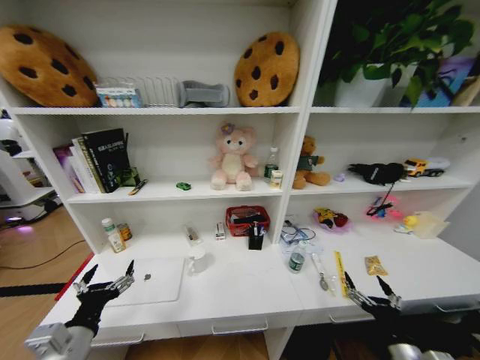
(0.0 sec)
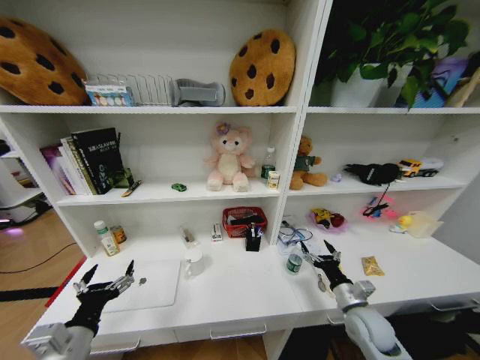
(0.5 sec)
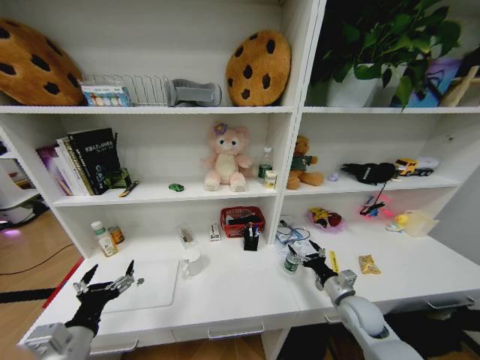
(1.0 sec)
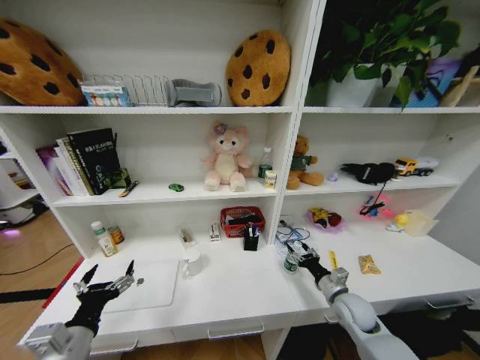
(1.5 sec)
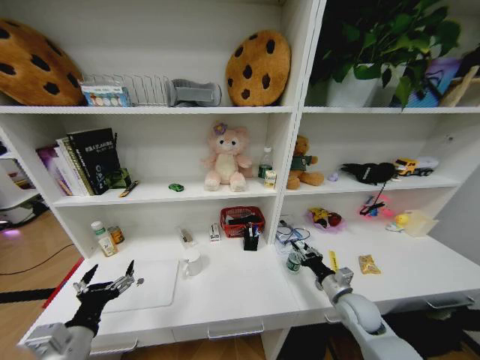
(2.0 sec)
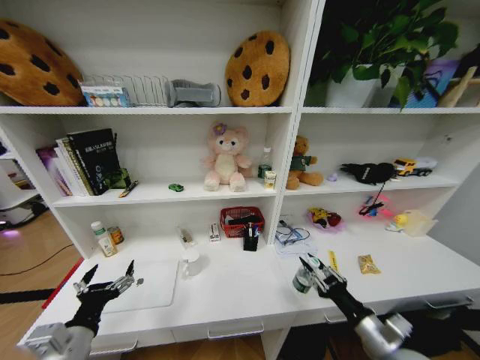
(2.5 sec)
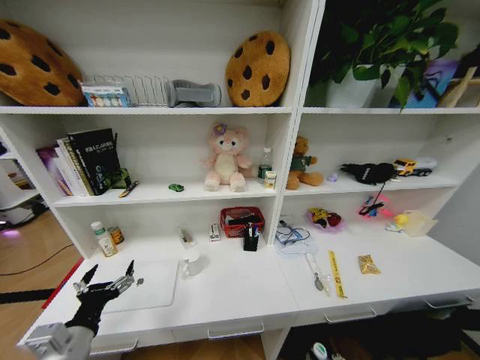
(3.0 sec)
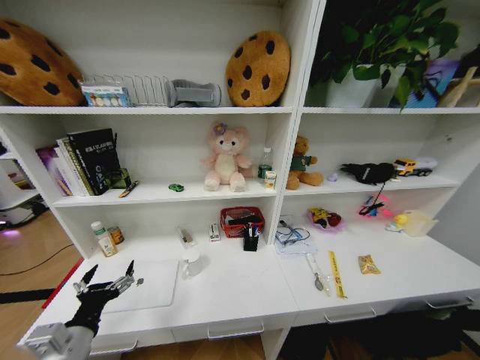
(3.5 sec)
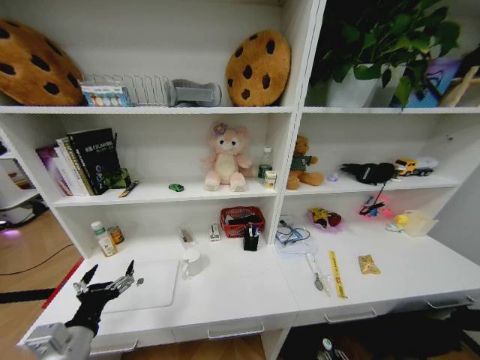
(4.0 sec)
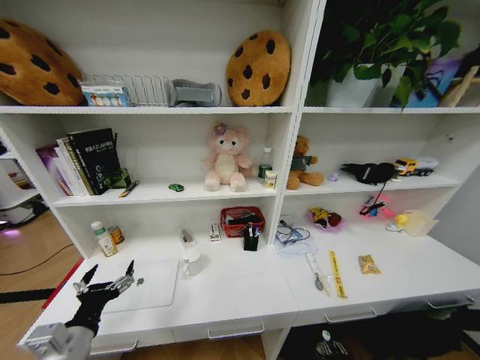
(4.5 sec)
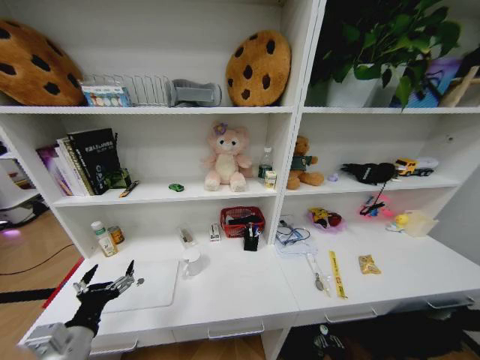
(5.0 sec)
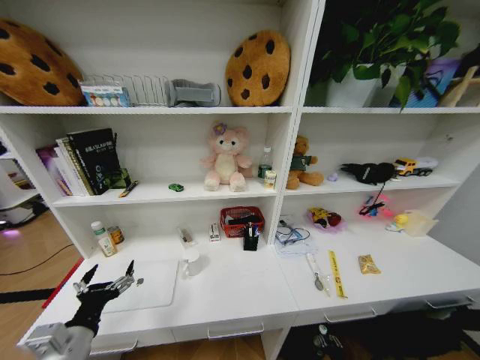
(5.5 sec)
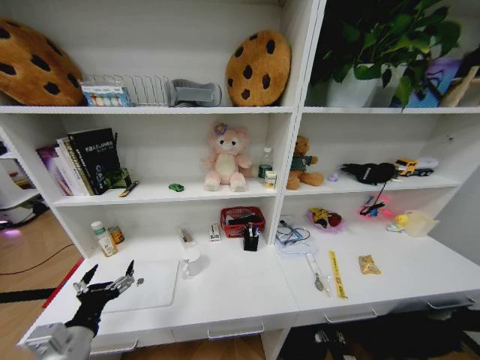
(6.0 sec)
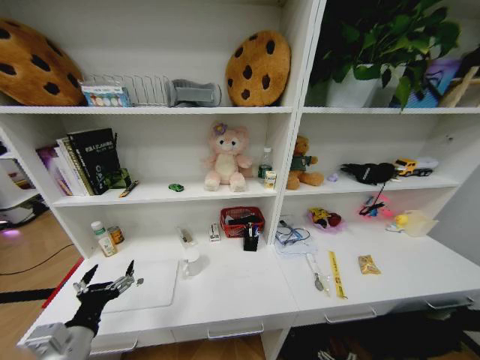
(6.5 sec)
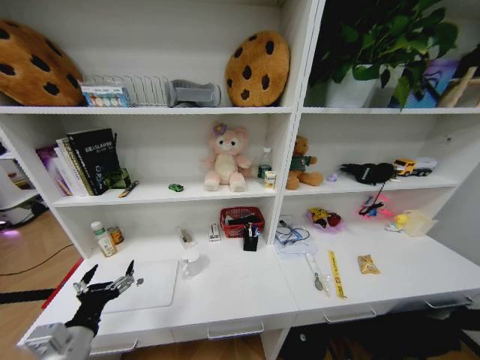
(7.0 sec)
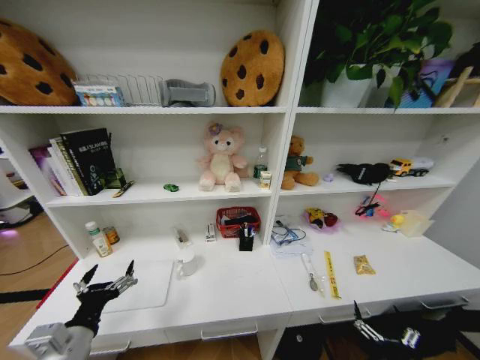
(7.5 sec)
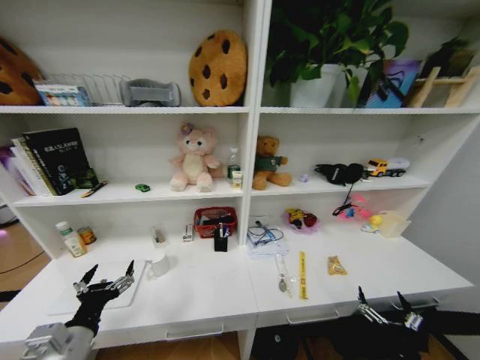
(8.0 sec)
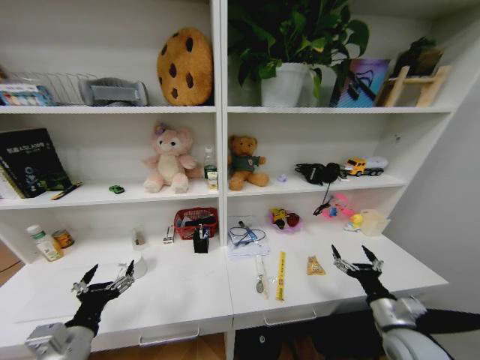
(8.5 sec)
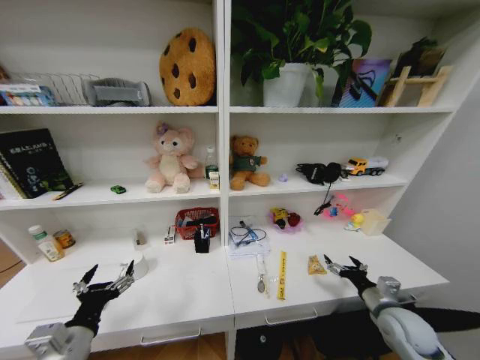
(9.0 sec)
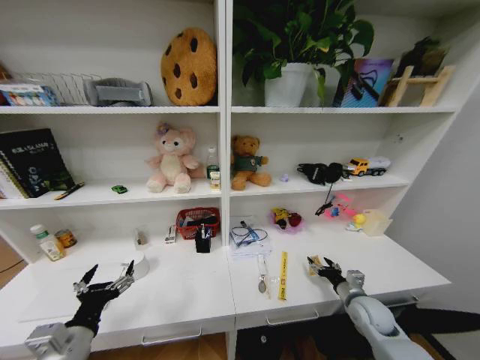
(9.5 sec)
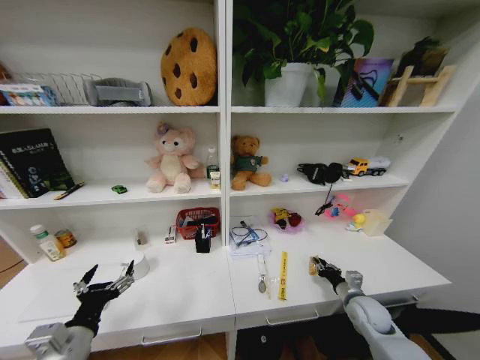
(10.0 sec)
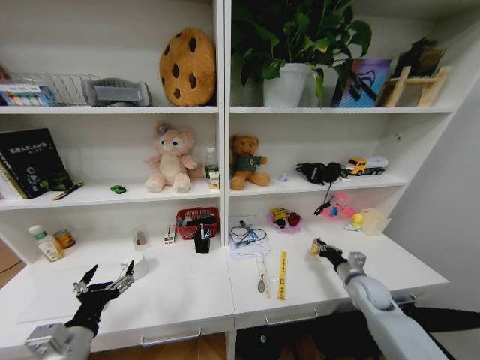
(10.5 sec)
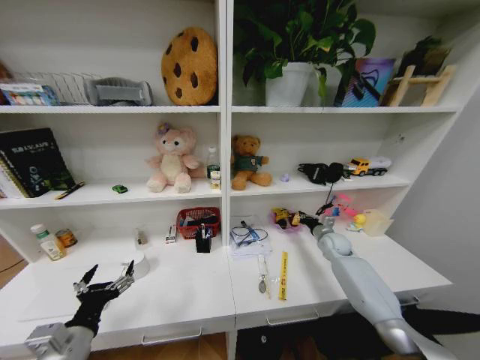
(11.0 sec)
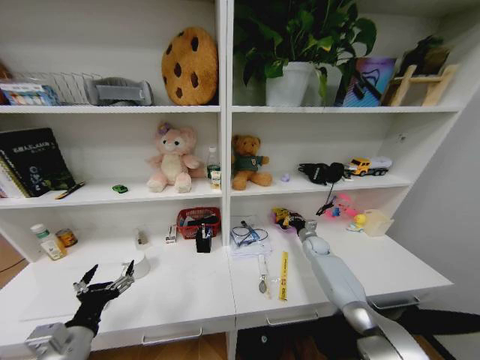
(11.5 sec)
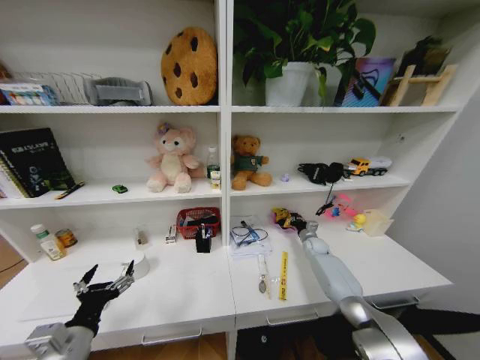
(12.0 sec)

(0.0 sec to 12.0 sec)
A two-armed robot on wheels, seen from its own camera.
Task of the whole recording: Organize the objects on the table.
0.0 sec - 2.0 sec: The right gripper shifts roughly 15 cm forward, and closes.
2.0 sec - 4.0 sec: The right gripper is displaced downward and backward by roughly 35 cm.
6.0 sec - 8.0 sec: The right gripper moves upward, approximately 25 cm, and opens up.
8.0 sec - 10.0 sec: The right gripper is displaced forward by about 20 cm, and closes up.
10.0 sec - 12.0 sec: The right gripper travels forward by some 25 cm.

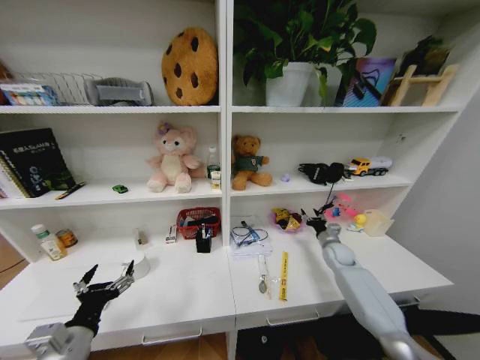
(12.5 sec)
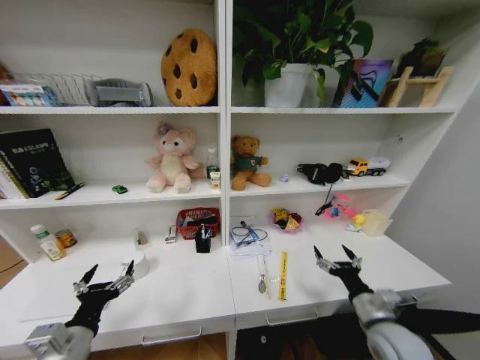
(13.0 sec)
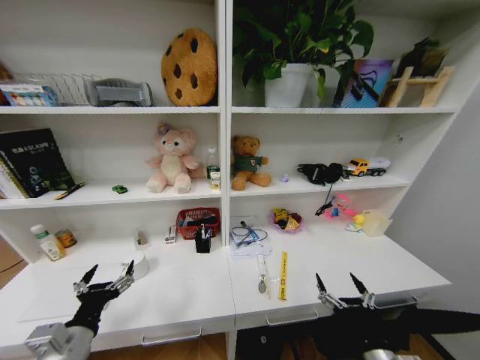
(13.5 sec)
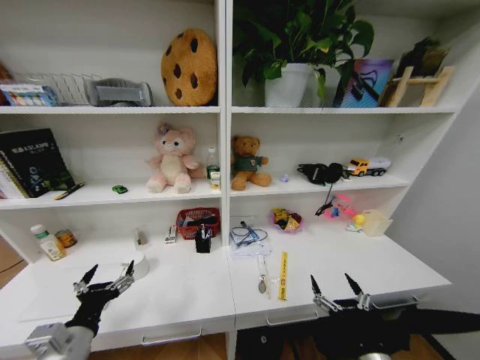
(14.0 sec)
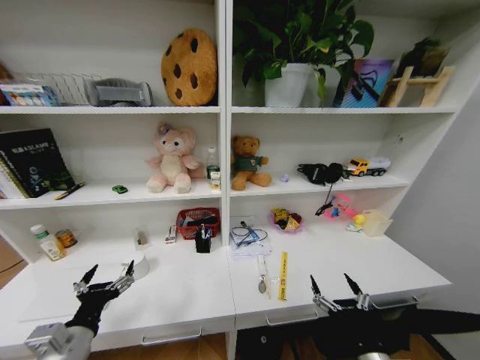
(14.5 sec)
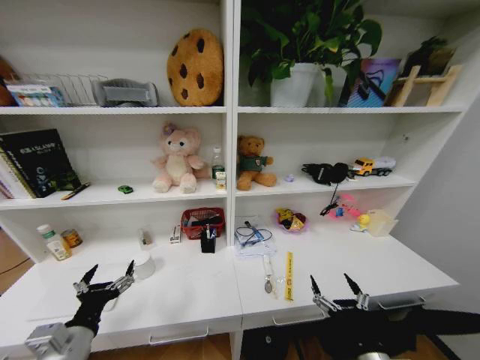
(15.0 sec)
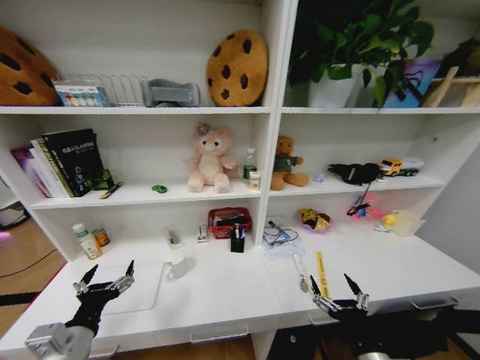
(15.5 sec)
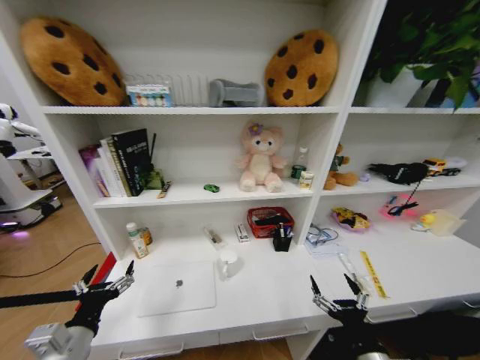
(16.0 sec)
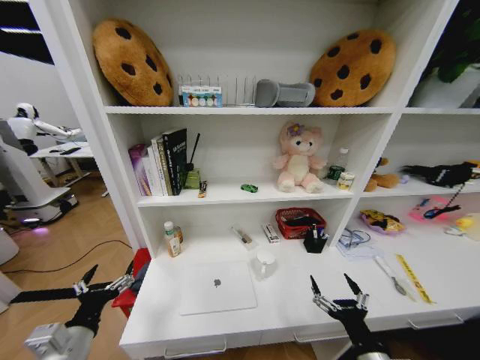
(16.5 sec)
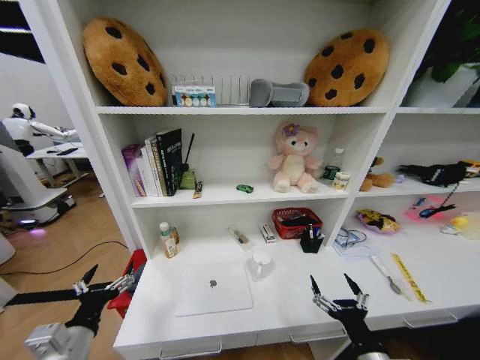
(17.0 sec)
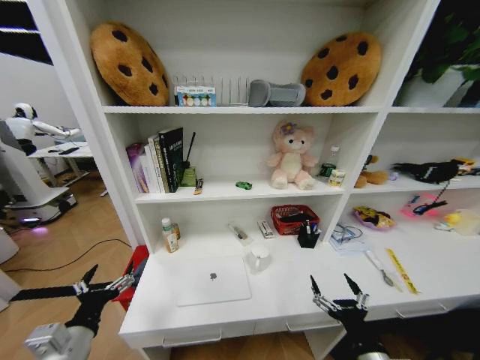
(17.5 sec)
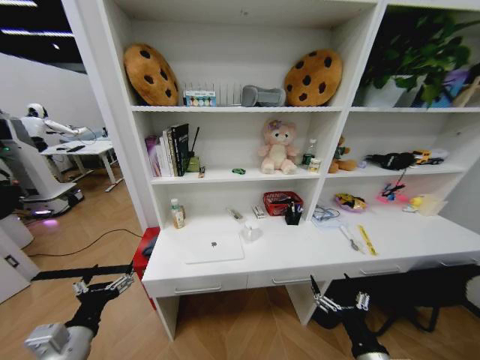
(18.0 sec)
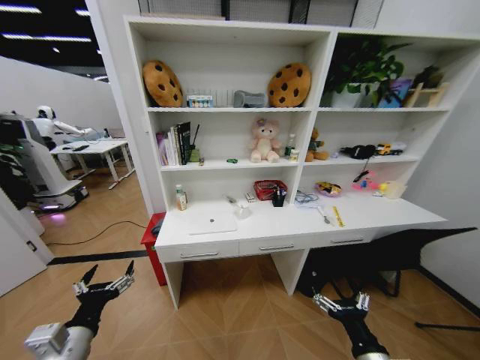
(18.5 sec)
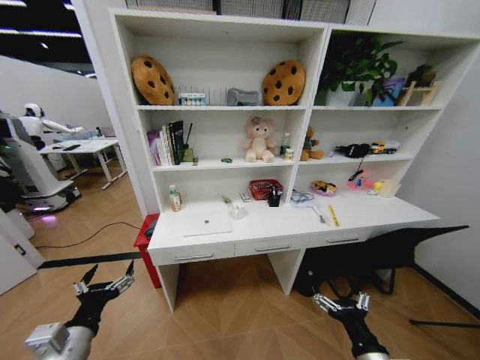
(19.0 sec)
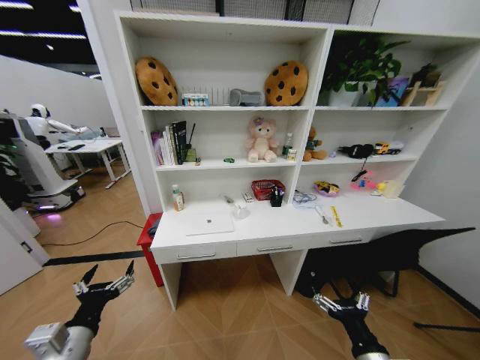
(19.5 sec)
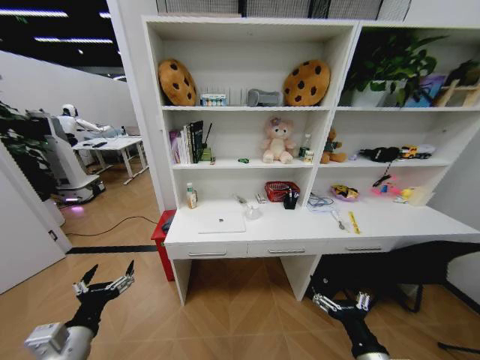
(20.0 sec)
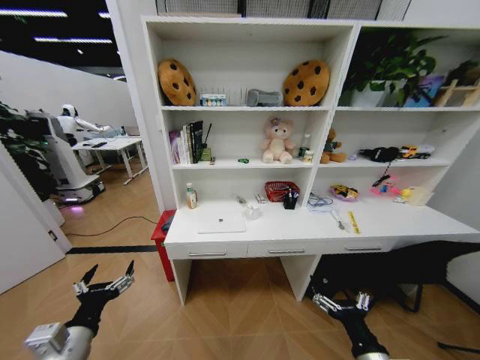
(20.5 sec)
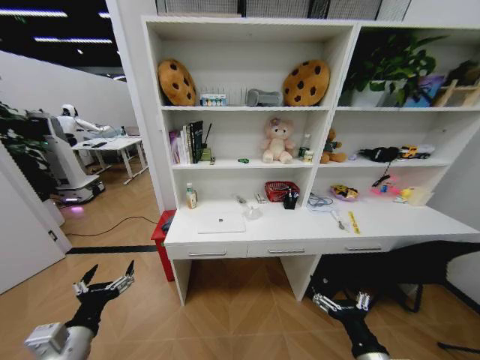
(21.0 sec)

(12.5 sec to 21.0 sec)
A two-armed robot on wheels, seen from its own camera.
Task of the whole recording: Organize the objects on the table.
12.5 sec - 14.5 sec: The right gripper heads backward, covering some 40 cm, and opens its fingers.

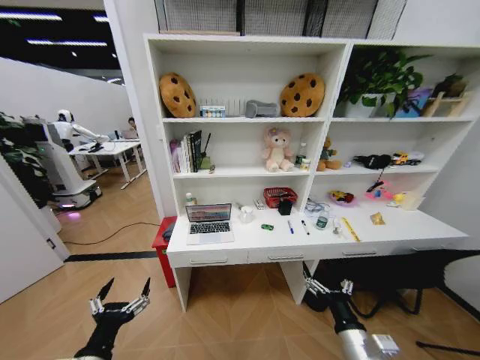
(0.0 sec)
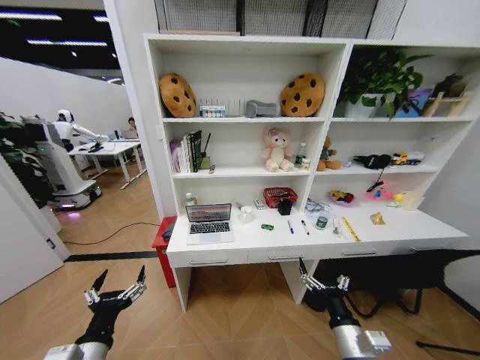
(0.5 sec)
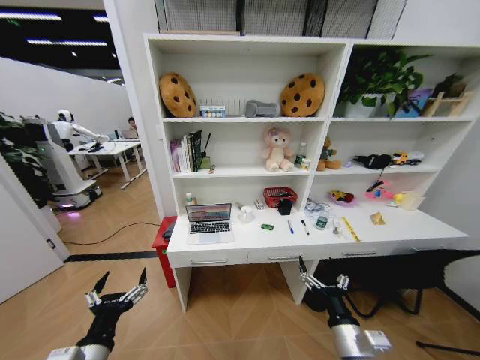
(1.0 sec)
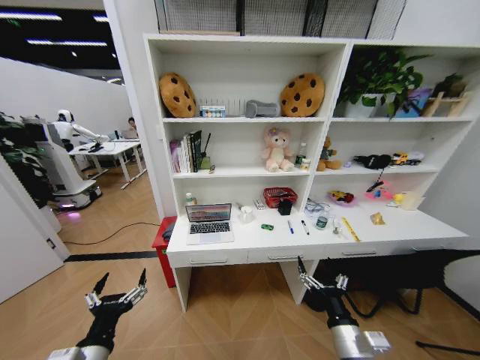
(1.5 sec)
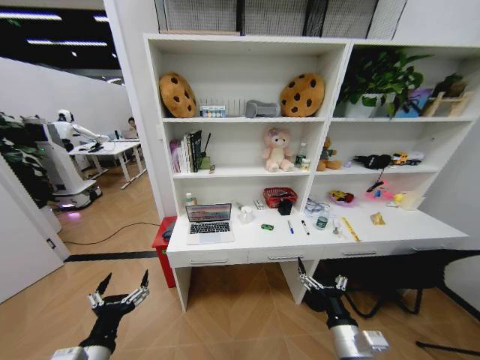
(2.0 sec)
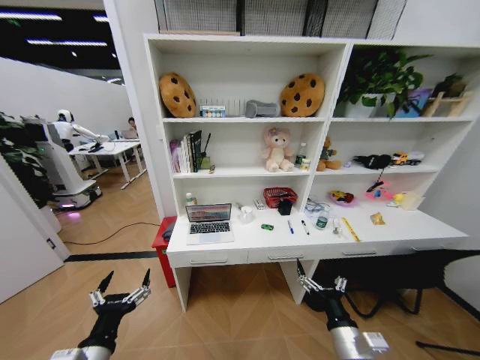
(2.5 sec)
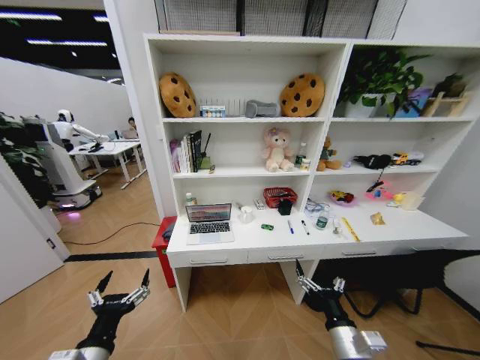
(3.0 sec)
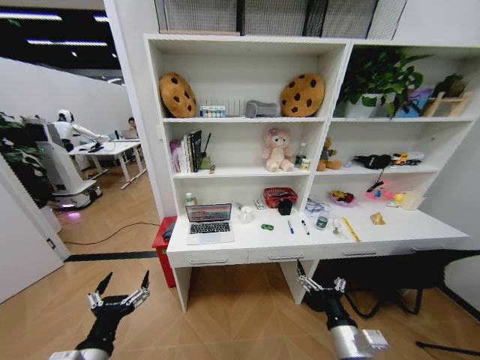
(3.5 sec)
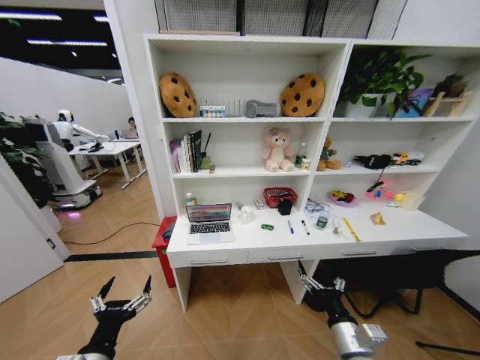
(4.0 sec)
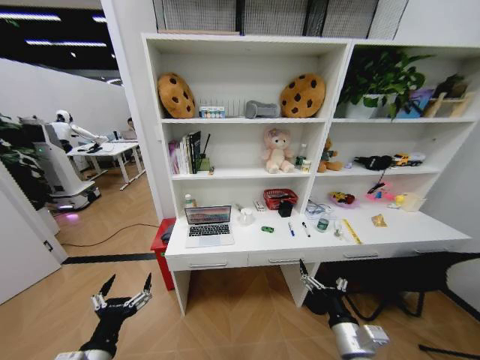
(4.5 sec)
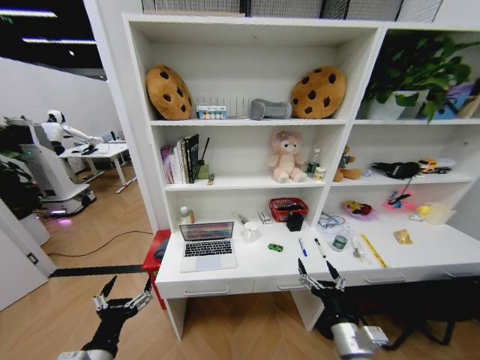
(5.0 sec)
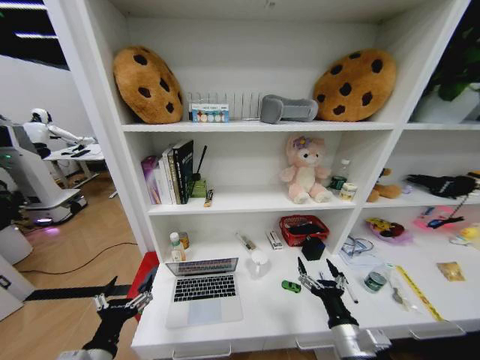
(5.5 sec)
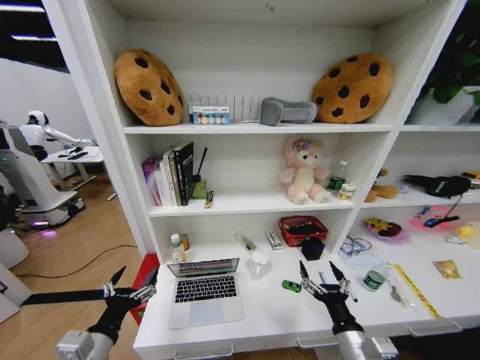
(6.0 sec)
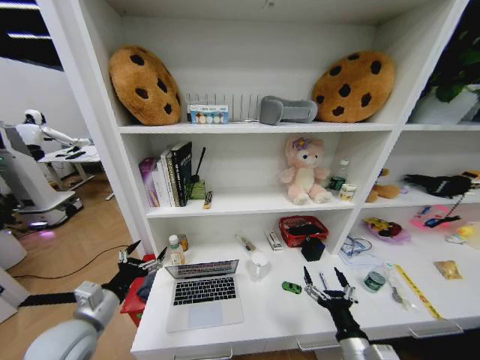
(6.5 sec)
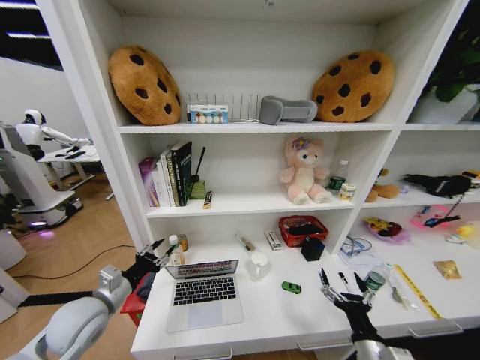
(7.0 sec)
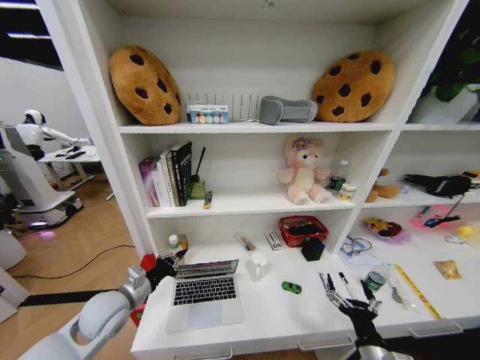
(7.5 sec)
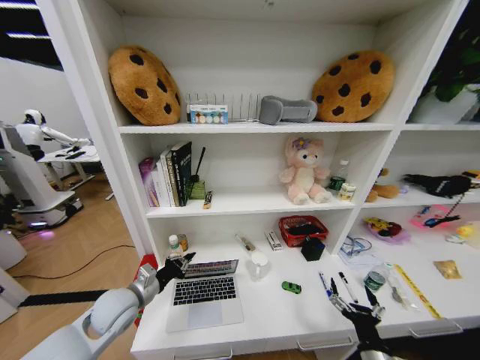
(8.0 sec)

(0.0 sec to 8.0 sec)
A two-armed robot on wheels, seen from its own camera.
Task of the whole recording: Organize the objects on the table.
2.0 sec - 4.0 sec: The grippers make only small movements.
6.0 sec - 8.0 sec: The left gripper moves forward, roughly 15 cm, and closes, while the right gripper is displaced downward by roughly 5 cm.
